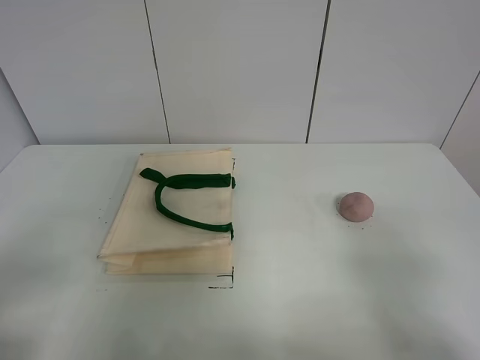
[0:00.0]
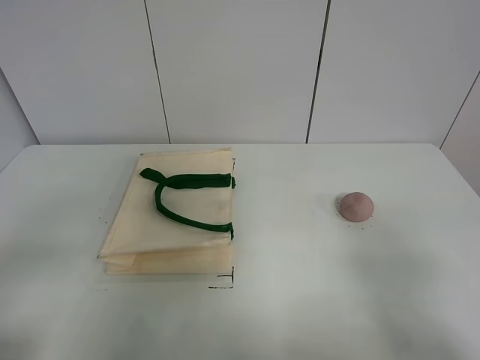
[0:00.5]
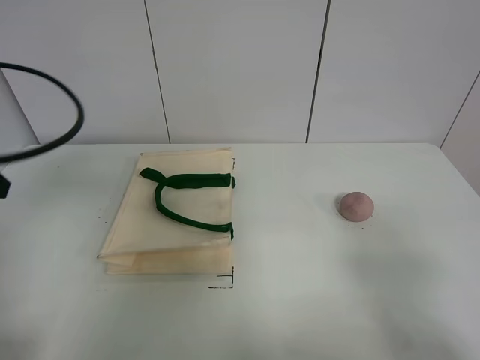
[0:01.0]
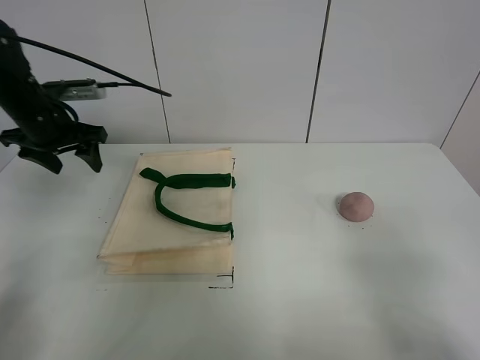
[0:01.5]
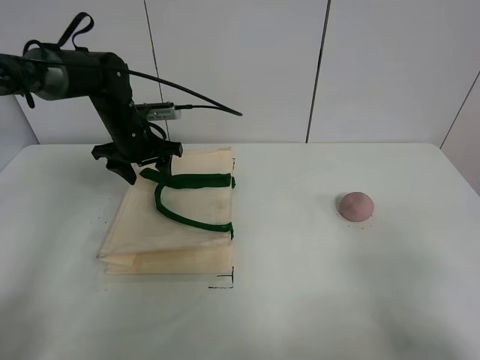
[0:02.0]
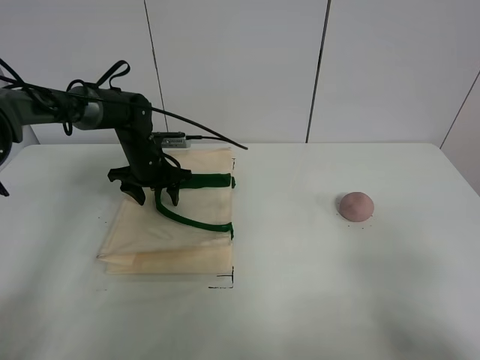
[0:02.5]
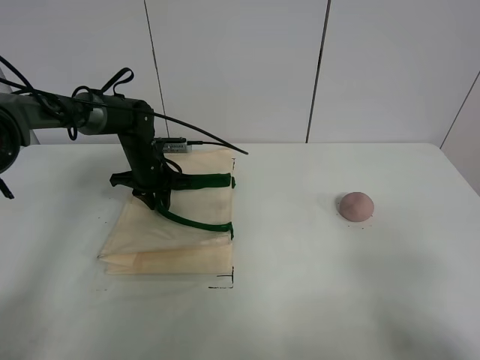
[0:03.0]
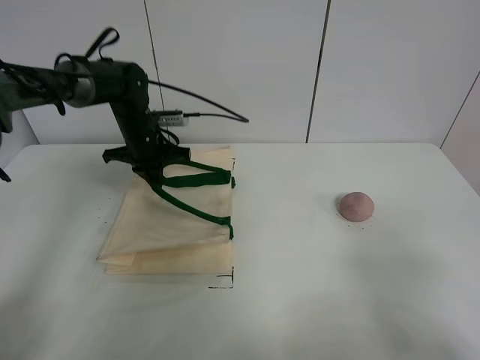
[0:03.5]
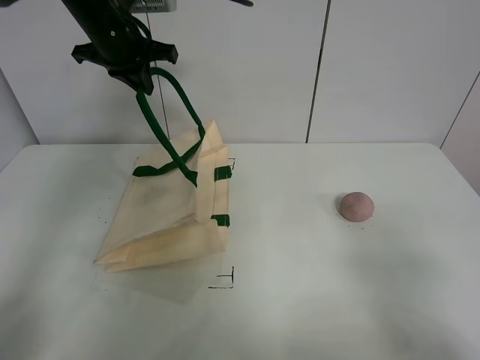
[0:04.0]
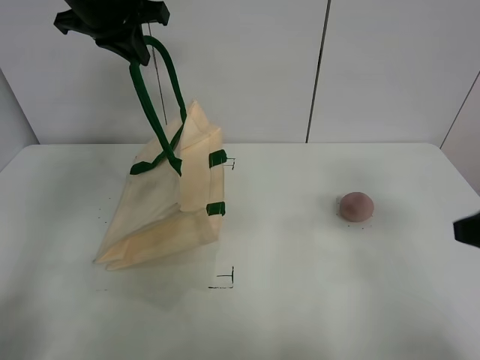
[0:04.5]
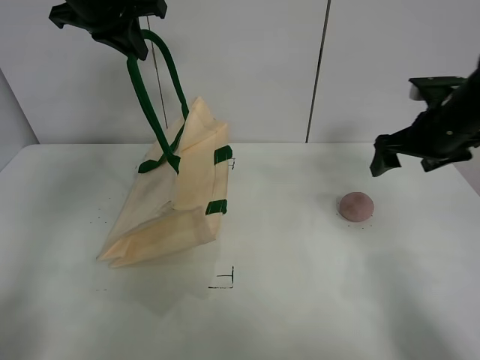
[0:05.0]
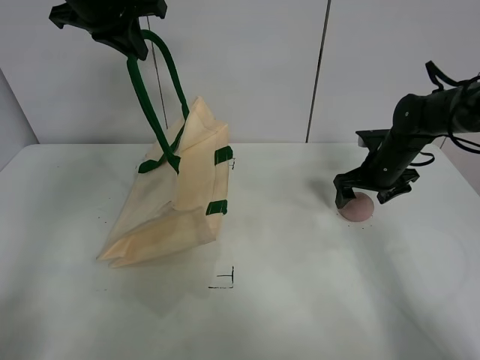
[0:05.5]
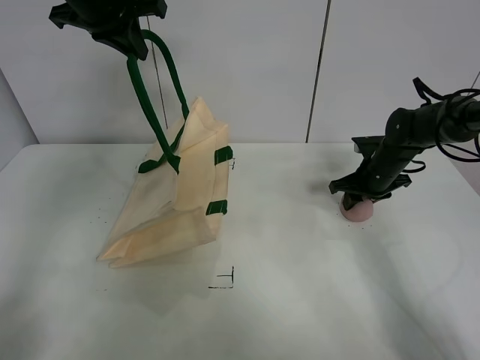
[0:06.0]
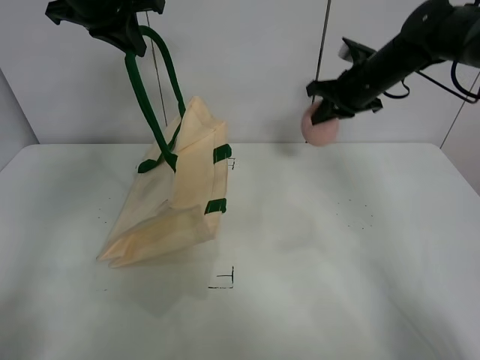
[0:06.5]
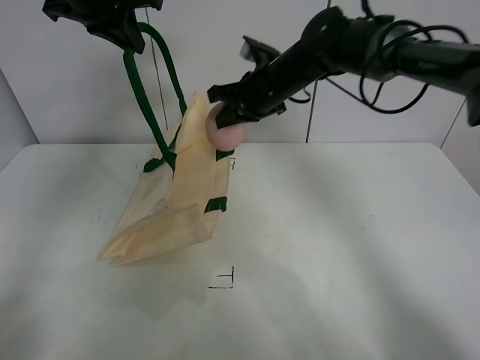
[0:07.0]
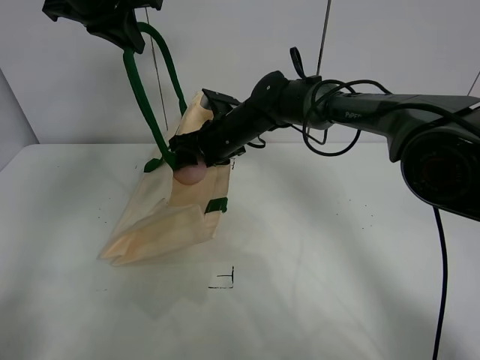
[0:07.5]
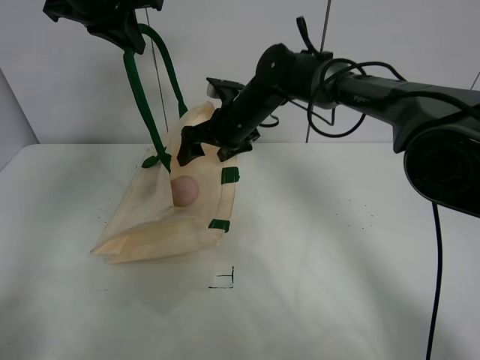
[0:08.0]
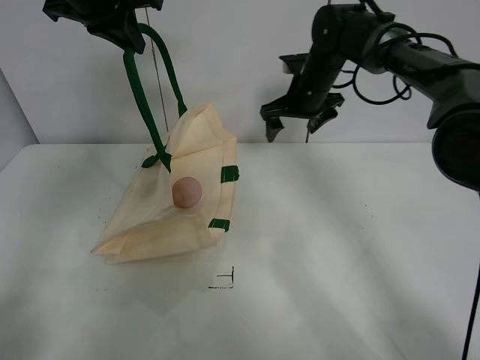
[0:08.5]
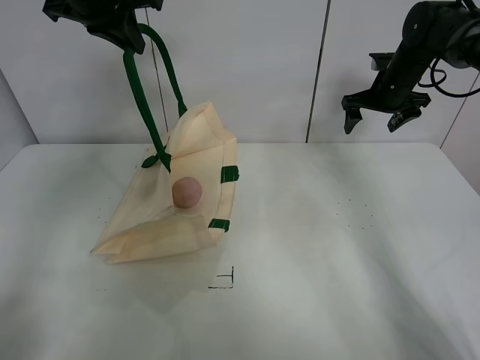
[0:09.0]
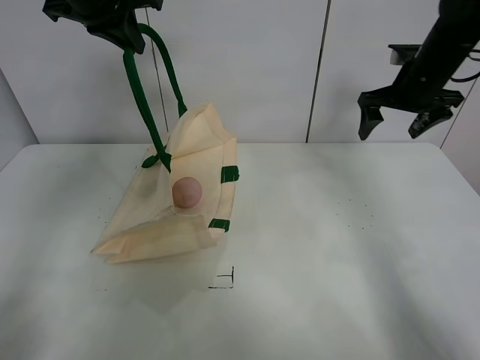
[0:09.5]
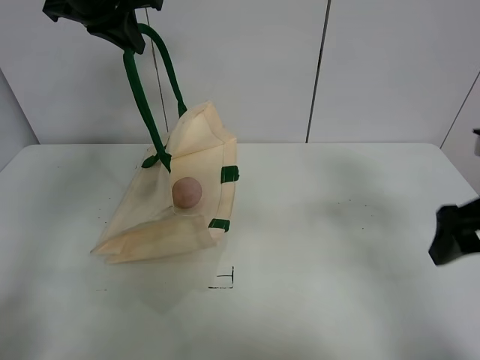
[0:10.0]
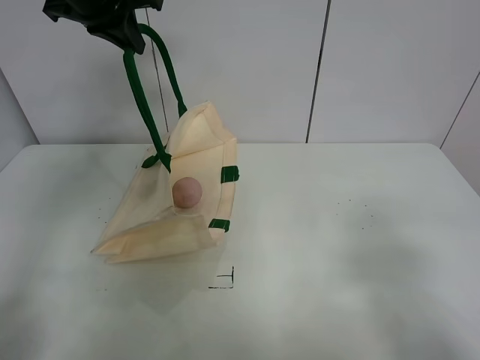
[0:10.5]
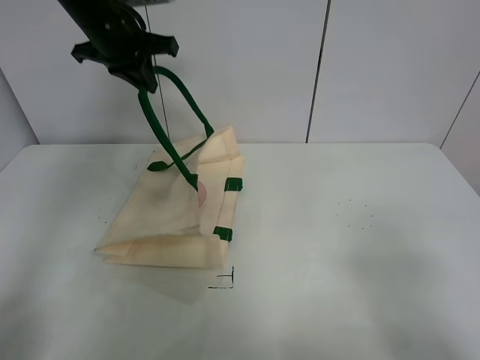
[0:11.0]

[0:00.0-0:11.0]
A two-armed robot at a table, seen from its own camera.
Task of the whole recording: open the white linen bag and put the peach in the bag.
Step, 0:00.0 to 0:04.5: Lift the handbag with left gripper.
Step, 0:05.0 to 0:06.0: Grasp the peach with right gripper.
Step, 0:06.5 to 0:08.0: Place the peach in the handbag with right gripper.
0:00.0 to 0:02.0: The left gripper shifts some 40 cm forward.
0:02.0 to 0:03.5: The left gripper moves approximately 5 cm downward and comes back, and closes.
0:03.5 to 0:05.5: The right gripper shifts approximately 40 cm forward, while the left gripper shifts some 20 cm upward.
0:05.5 to 0:07.5: The right gripper travels to the left by approximately 25 cm, and closes and opens again.
0:07.5 to 0:09.0: The right gripper is displaced to the right by some 30 cm.
0:09.0 to 0:11.0: The left gripper heads downward, covering approximately 5 cm; the right gripper travels backward by approximately 50 cm.

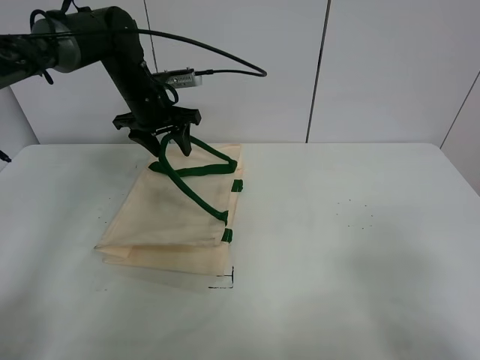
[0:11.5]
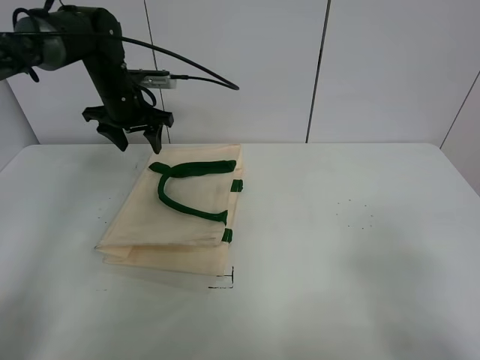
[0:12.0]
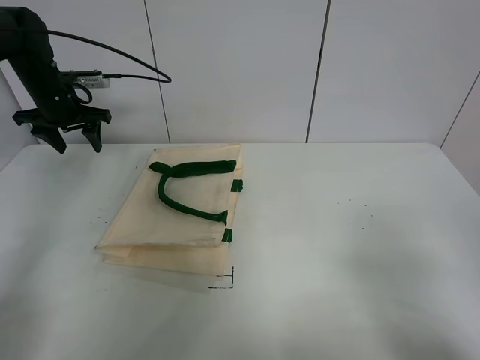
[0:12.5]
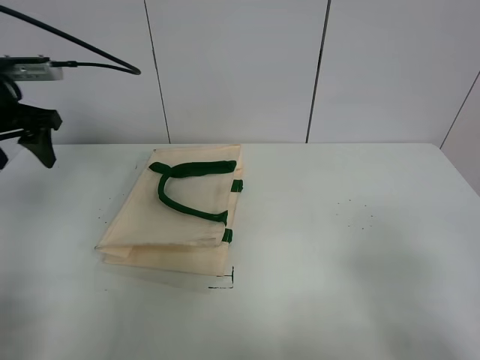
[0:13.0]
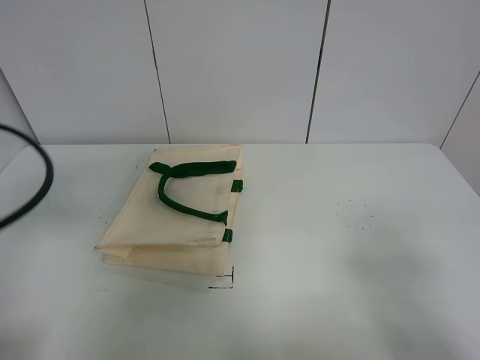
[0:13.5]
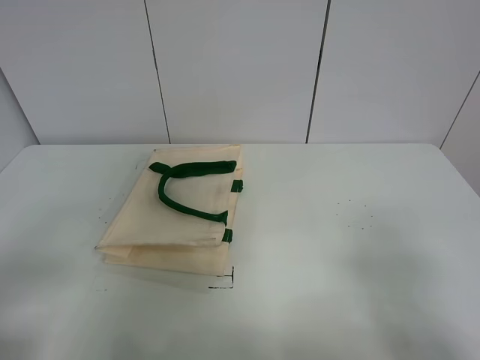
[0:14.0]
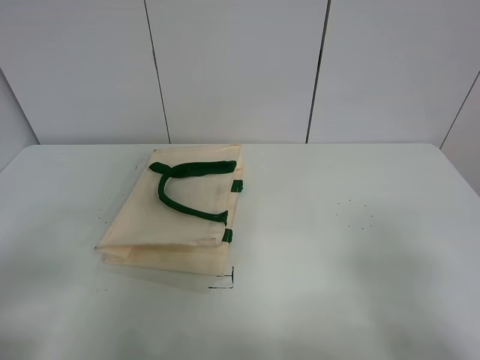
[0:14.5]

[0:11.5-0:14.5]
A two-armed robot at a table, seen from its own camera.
Task of the whole recording: open the white linen bag and put the peach in the bag.
0:11.5 to 0:13.0: The left gripper travels to the left, backward and upward by about 25 cm.
0:13.0 to 0:14.5: The left gripper is displaced backward by approximately 30 cm.

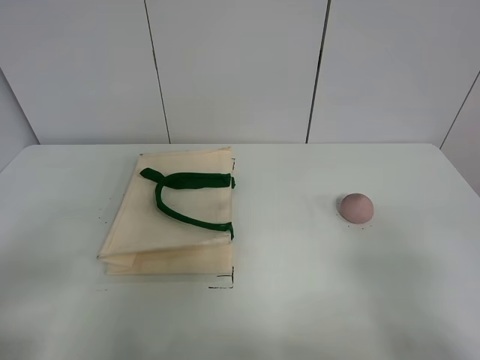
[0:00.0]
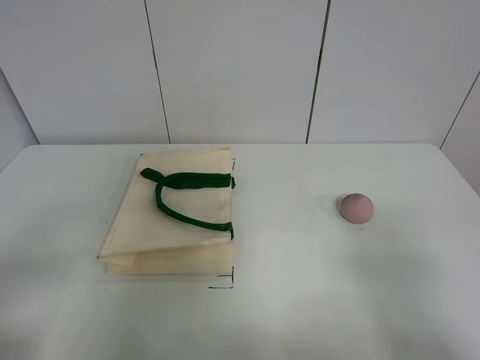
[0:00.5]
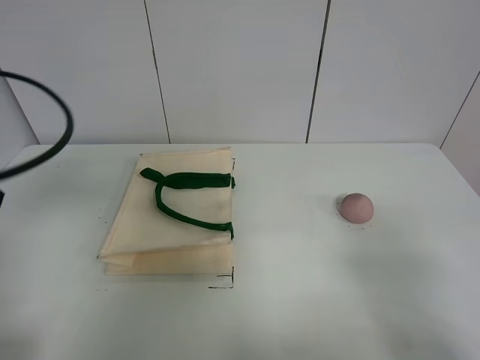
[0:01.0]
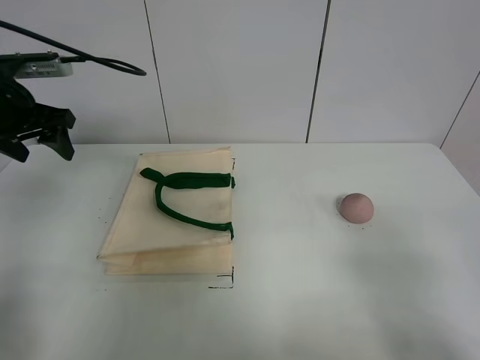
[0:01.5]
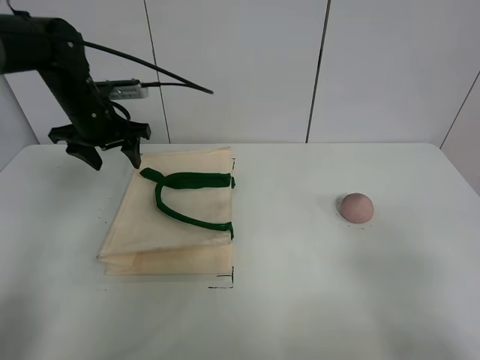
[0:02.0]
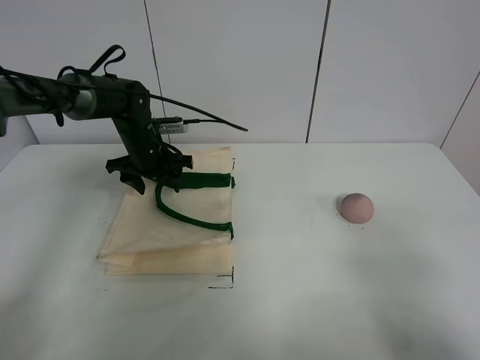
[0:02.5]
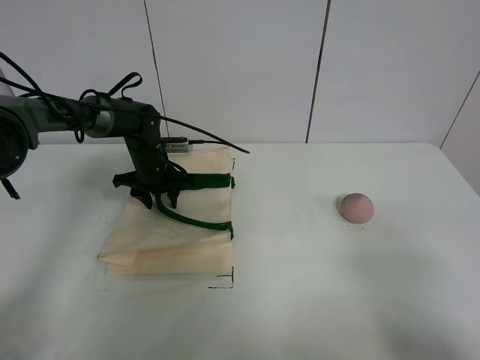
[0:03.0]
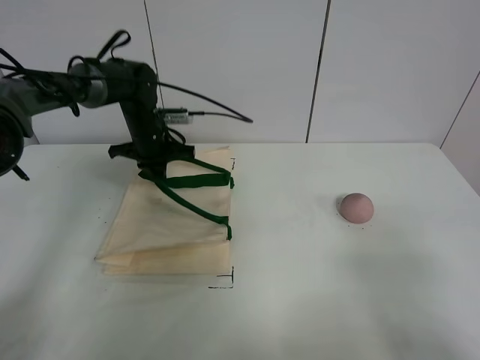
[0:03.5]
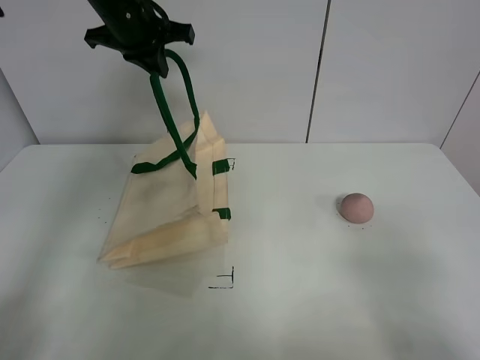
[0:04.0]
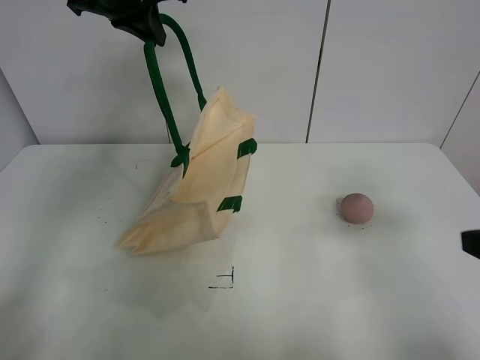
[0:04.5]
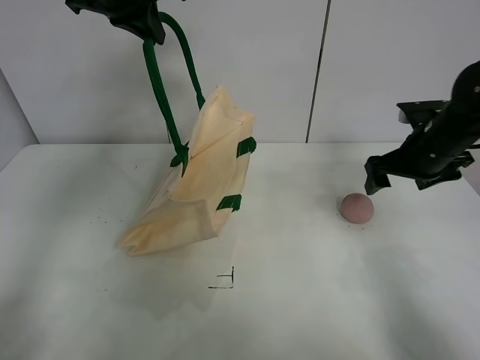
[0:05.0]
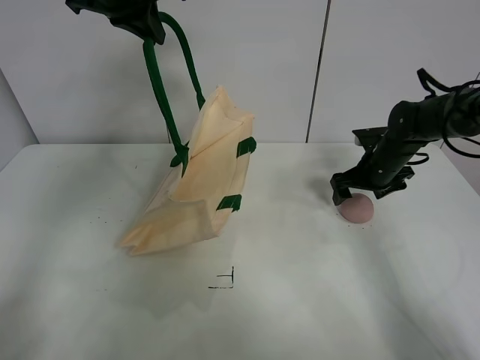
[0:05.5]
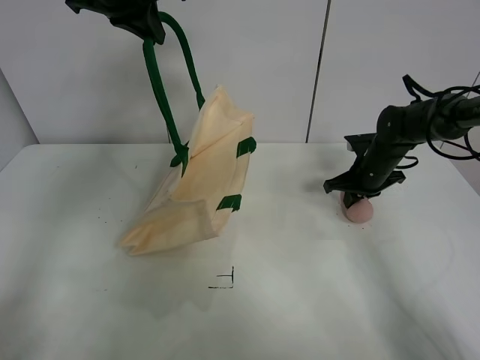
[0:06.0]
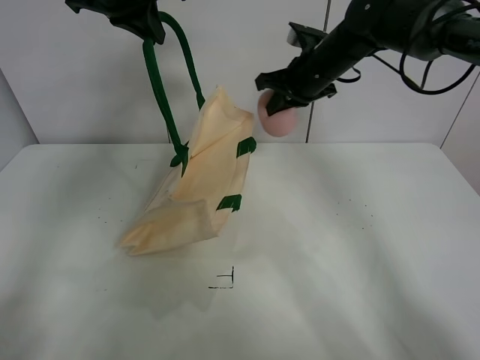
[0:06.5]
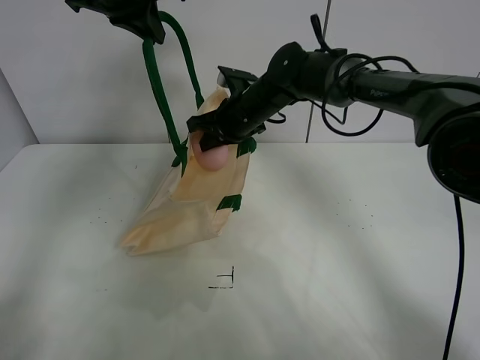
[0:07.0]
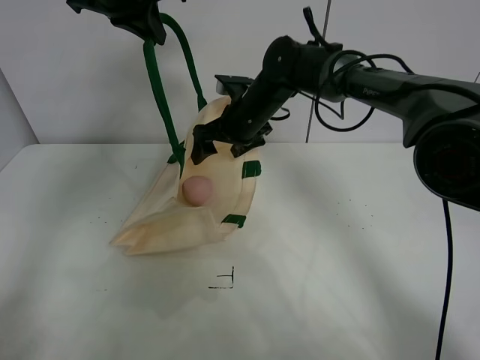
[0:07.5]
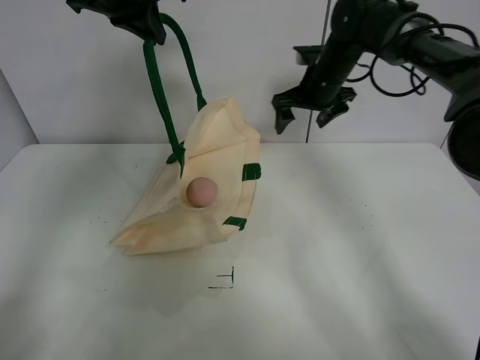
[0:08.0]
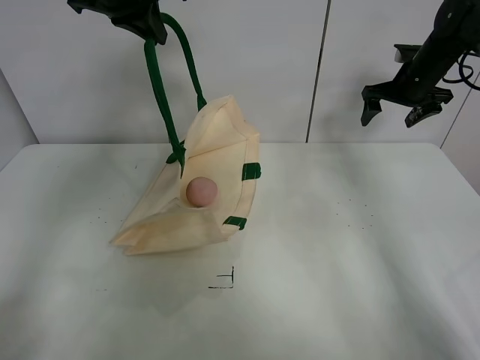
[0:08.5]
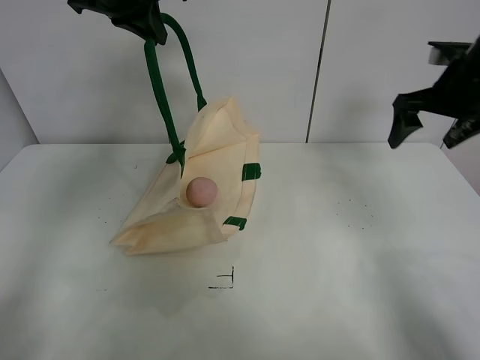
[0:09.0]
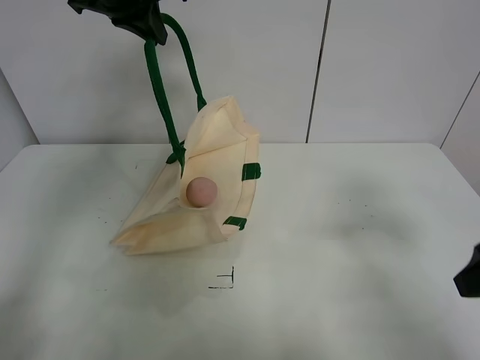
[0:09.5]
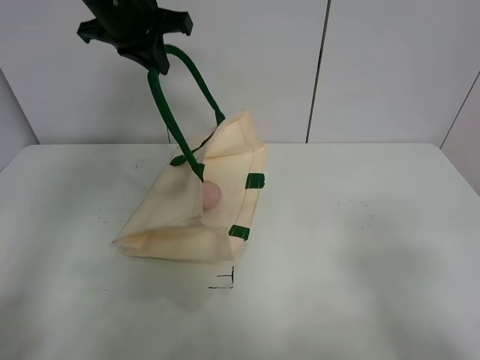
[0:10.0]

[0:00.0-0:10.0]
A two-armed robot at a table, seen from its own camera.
Task of the whole recording: open the white linen bag and put the peach in the bag.
Step, 0:00.0 to 0:04.5: Lift the handbag with left gripper.
Step, 0:05.0 to 0:05.5: Grasp the peach with right gripper.
Step, 0:06.0 to 0:07.5: Place the peach in the handbag with right gripper.
0:02.0 to 0:04.0: The left gripper shifts some 15 cm upward and to the right, and closes up.
0:04.0 to 0:06.0: The left gripper heads upward, covering approximately 5 cm. The right gripper heads forward and downward, covering approximately 50 cm, and closes up.
0:06.0 to 0:08.0: The right gripper travels upward and to the left by about 20 cm, and opens.
0:08.0 to 0:10.0: The right gripper shifts roughly 50 cm backward and to the right.

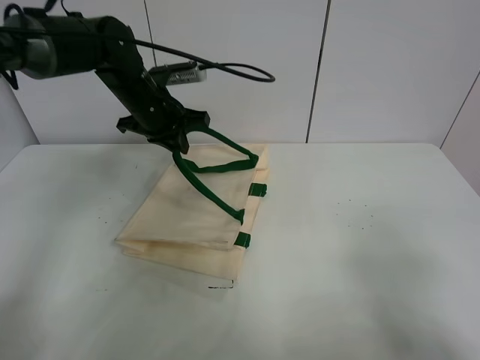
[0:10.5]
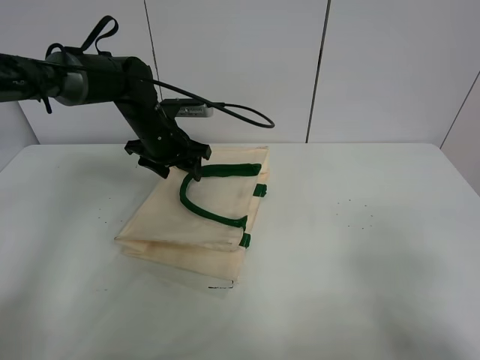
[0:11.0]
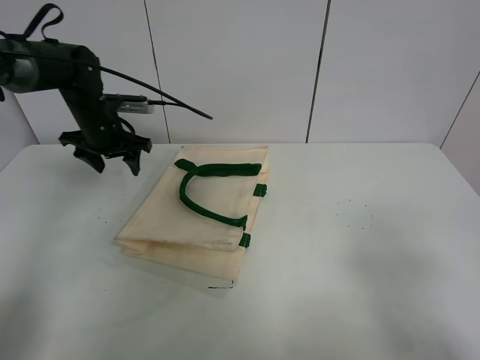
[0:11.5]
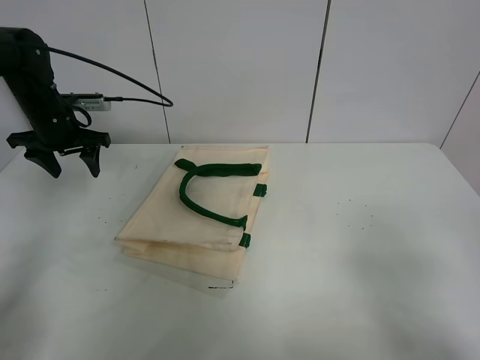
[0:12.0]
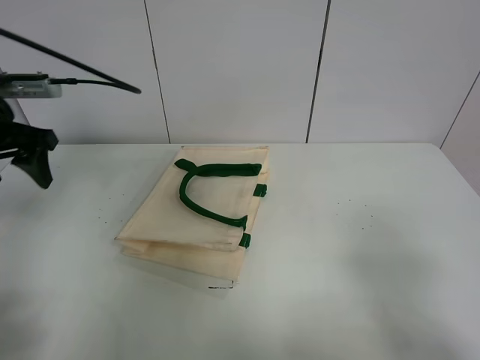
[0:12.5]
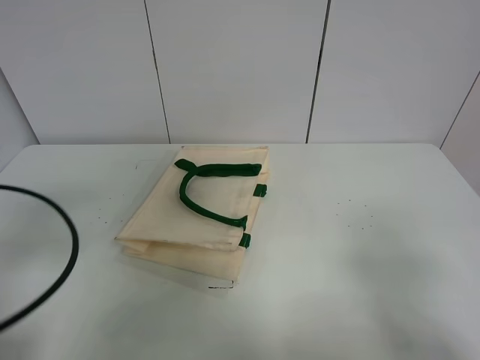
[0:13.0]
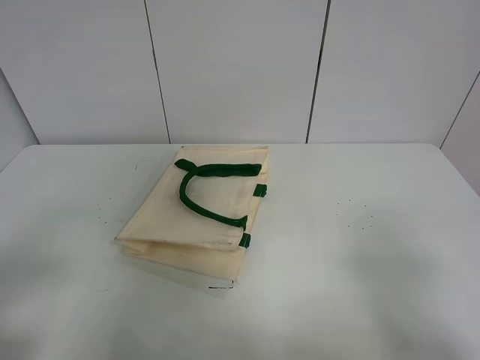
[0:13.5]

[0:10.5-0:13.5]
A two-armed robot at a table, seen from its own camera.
Task of the whole recording: open the white linen bag and put the peach in the bag.
0:10.5 to 0:12.0: The left gripper moves to the left, roughly 15 cm, and opens.
0:12.0 to 0:13.5: The left gripper travels backward by about 40 cm.
